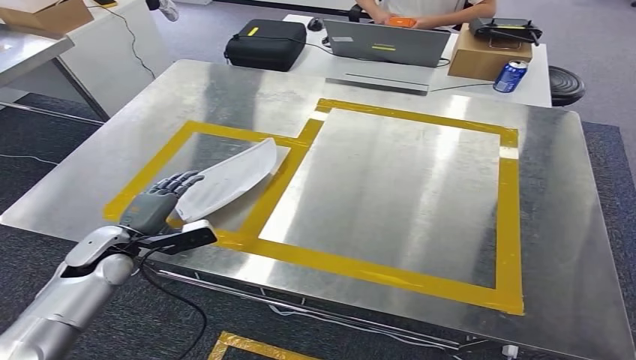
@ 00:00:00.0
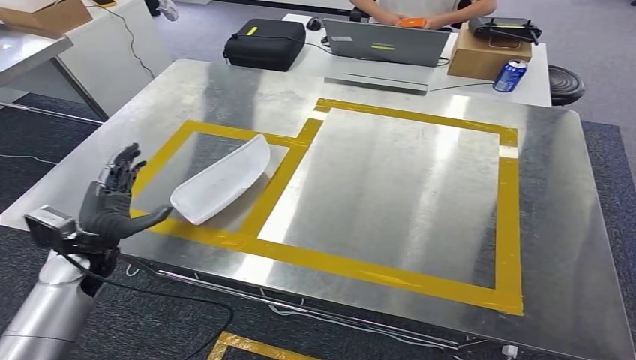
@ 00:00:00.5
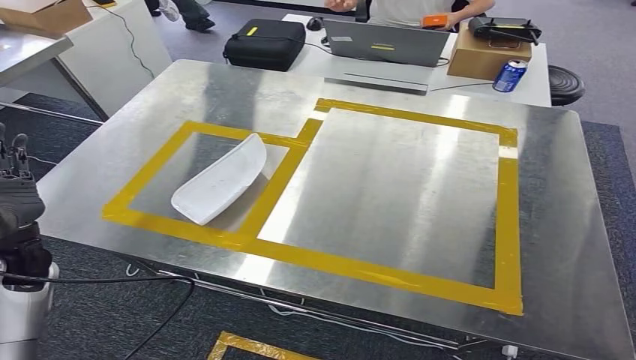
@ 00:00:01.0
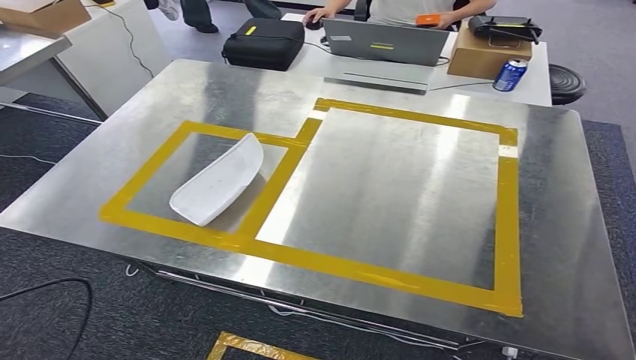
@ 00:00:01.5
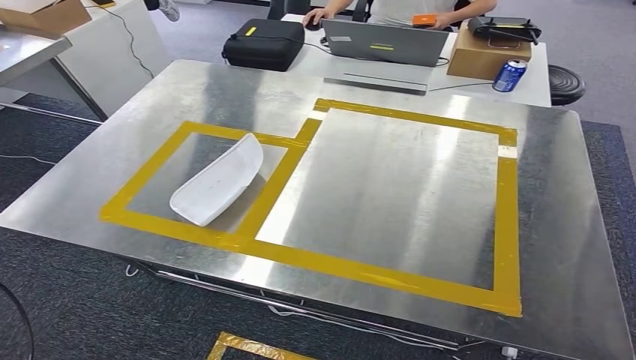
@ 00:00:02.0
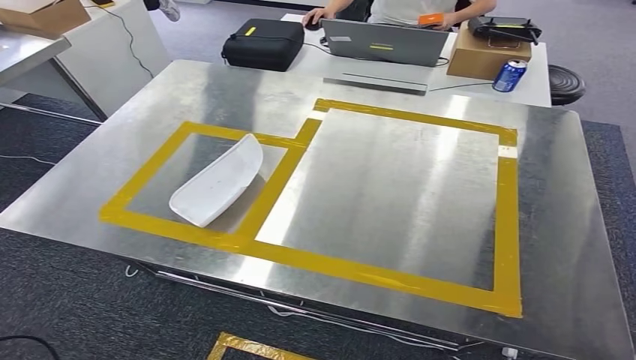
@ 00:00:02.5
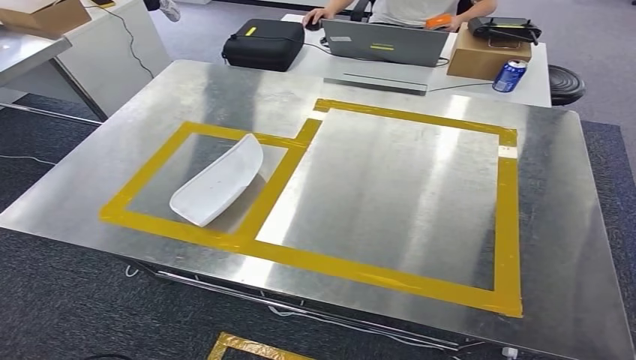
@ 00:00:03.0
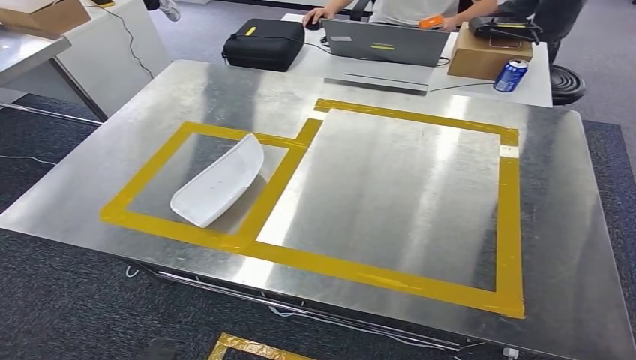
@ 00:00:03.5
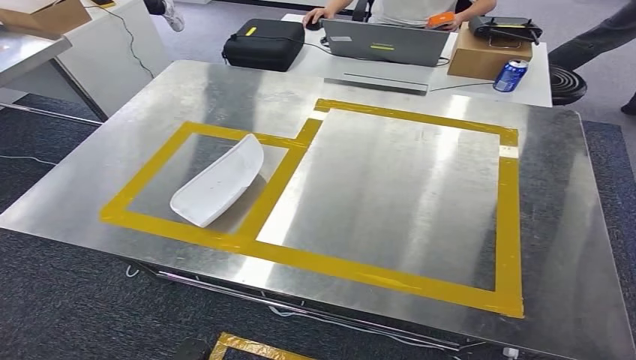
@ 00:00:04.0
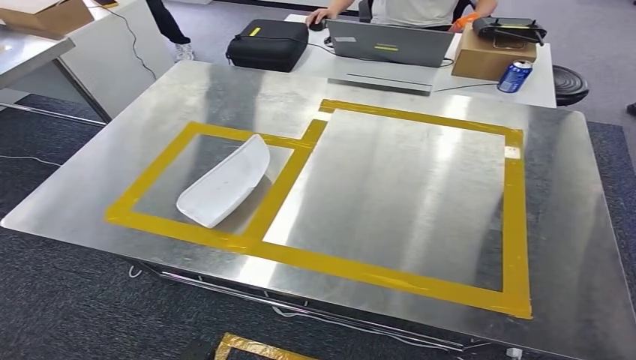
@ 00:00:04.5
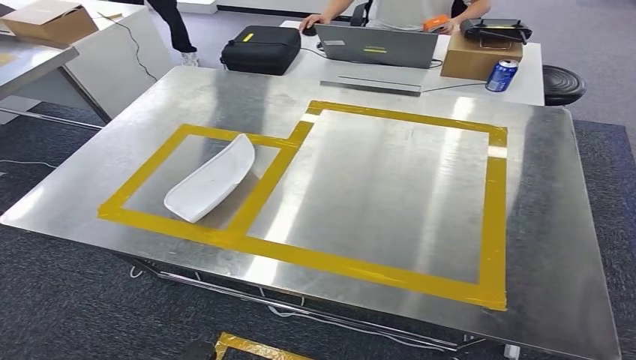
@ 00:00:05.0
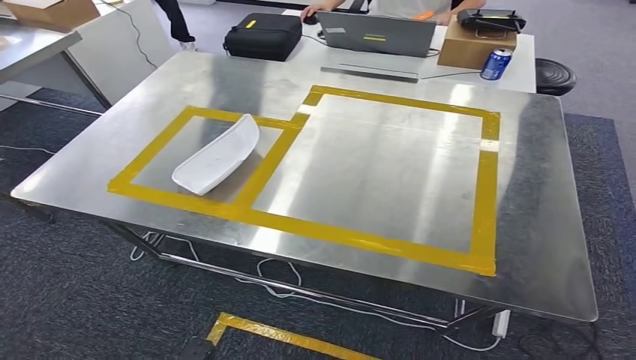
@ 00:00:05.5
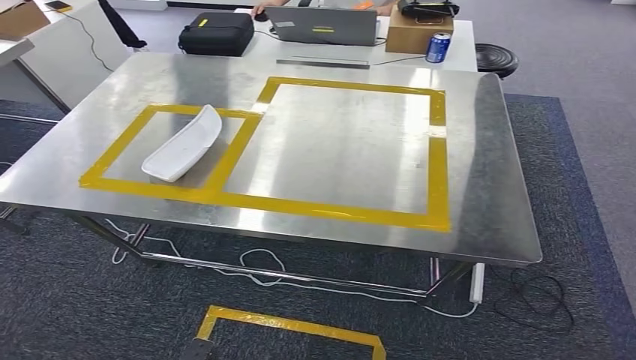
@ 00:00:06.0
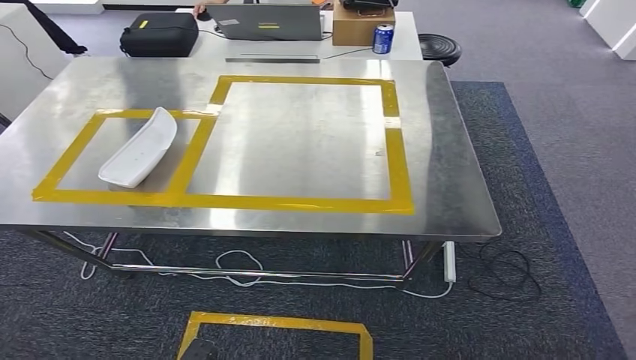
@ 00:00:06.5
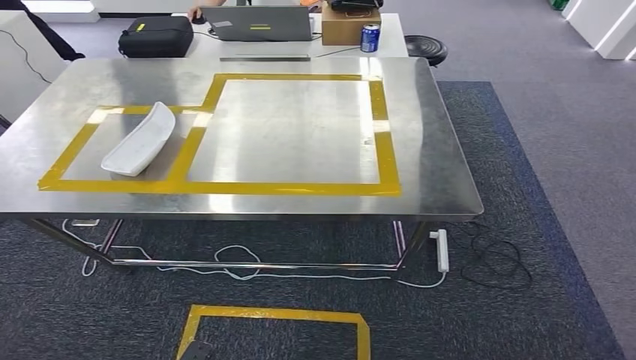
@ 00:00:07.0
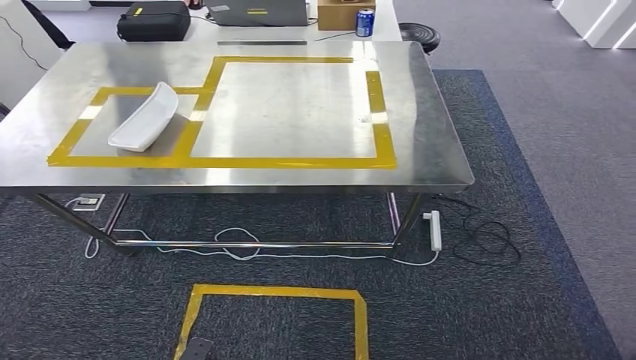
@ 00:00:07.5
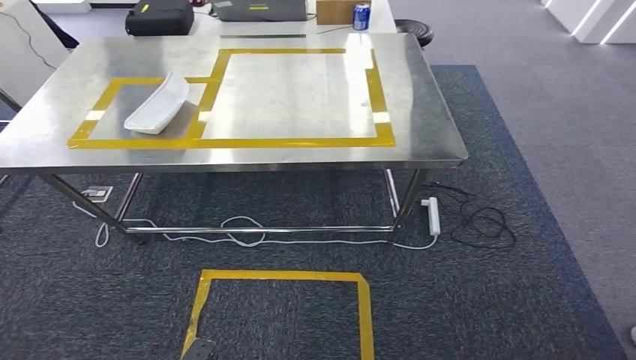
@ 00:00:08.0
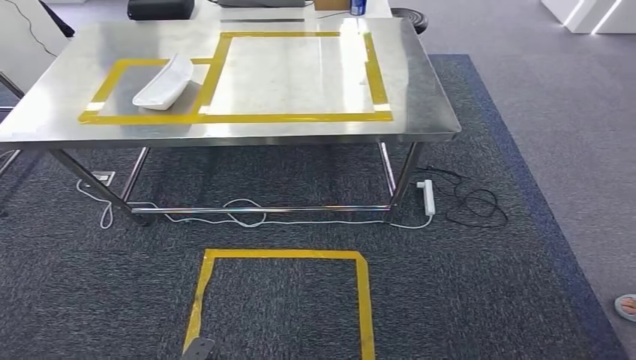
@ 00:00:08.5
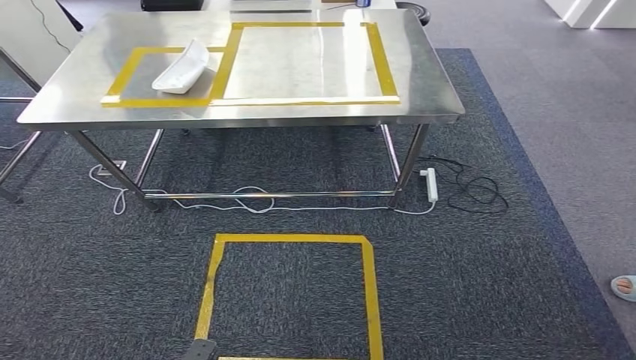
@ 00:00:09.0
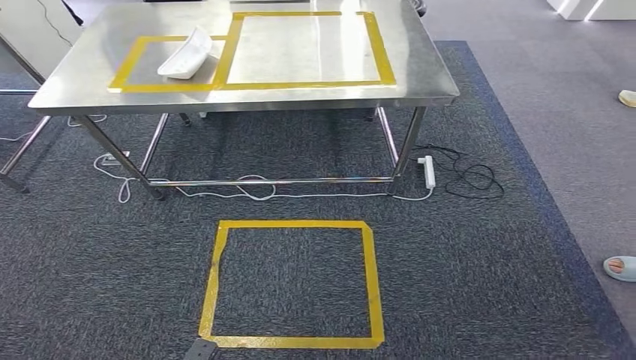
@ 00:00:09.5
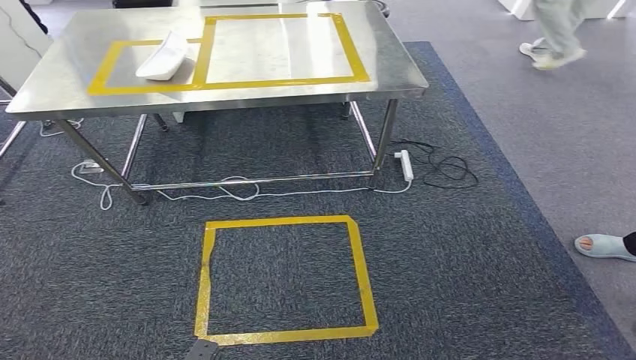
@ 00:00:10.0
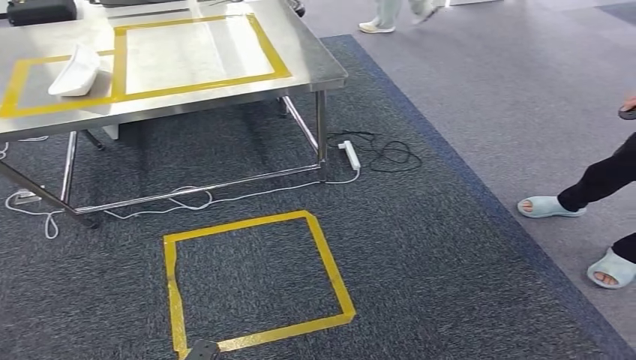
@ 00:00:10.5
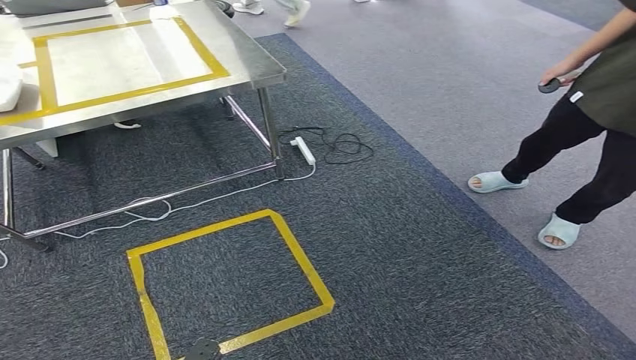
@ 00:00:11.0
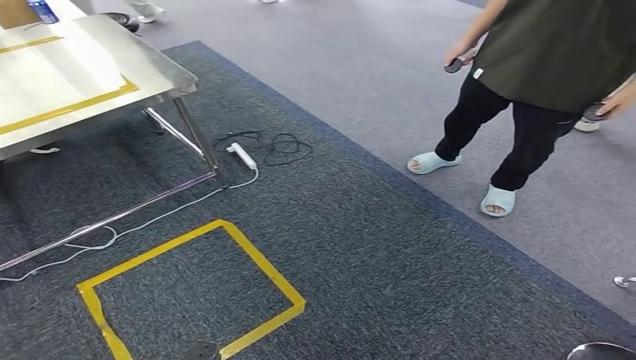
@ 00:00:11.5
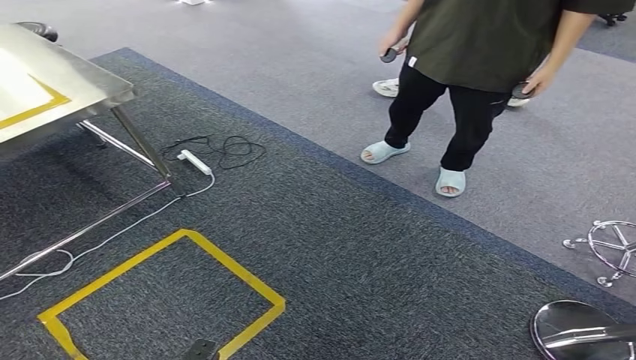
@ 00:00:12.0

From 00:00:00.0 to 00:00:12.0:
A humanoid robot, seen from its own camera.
Step, from 00:00:00.0 to 00:00:02.5: Insert the small component into the corresponding slot on the workbench.
From 00:00:00.0 to 00:00:02.0: The left hand travels backward and to the left by roughly 35 cm.
From 00:00:02.0 to 00:00:04.0: The left hand heads to the right and downward, covering approximately 50 cm.

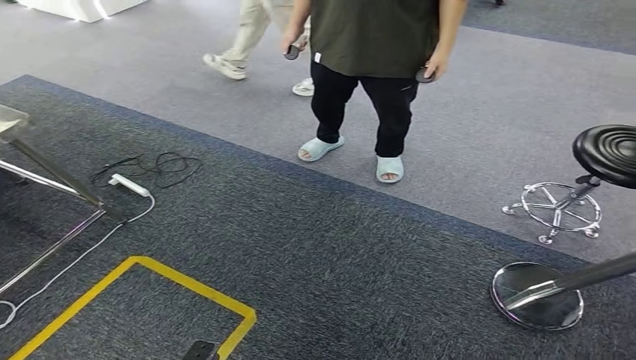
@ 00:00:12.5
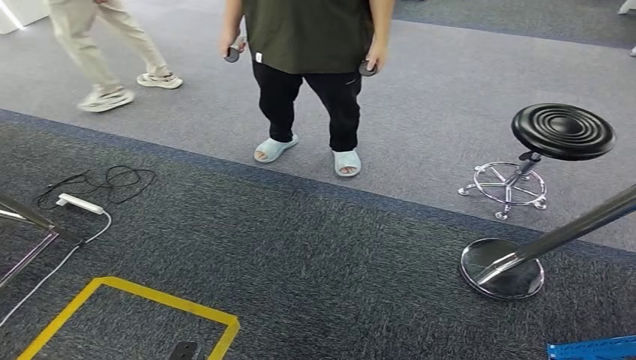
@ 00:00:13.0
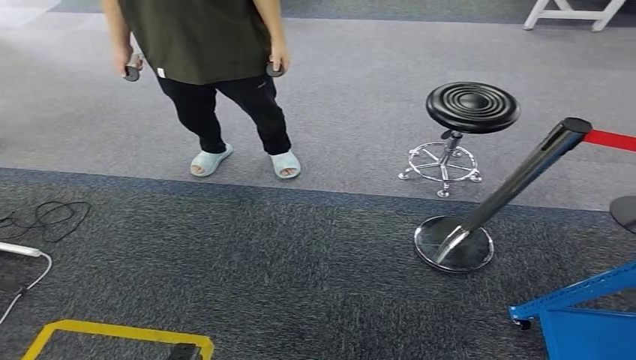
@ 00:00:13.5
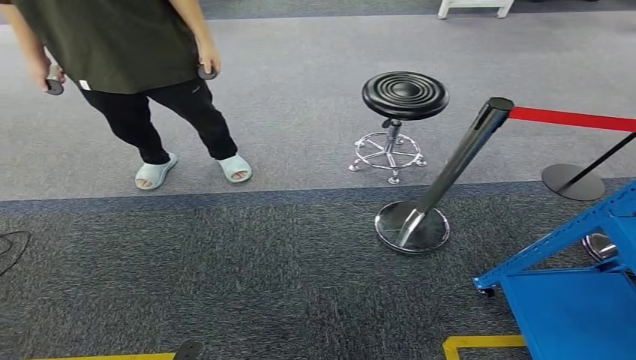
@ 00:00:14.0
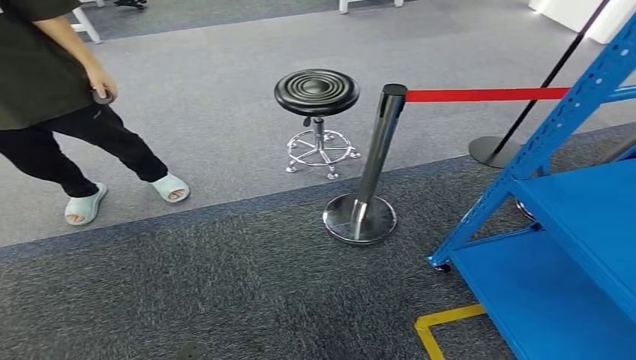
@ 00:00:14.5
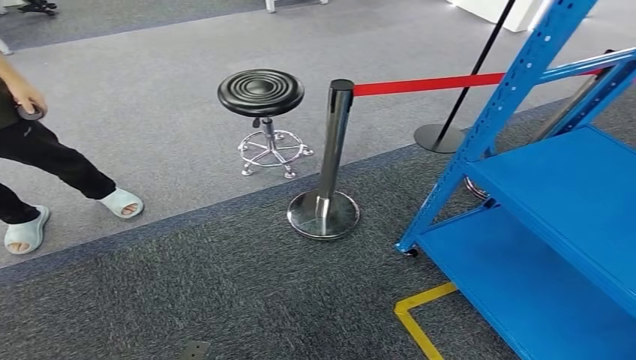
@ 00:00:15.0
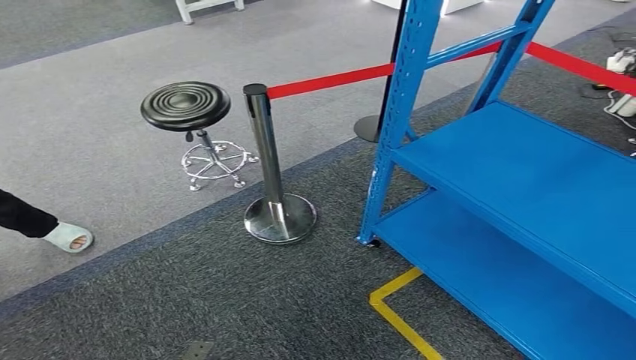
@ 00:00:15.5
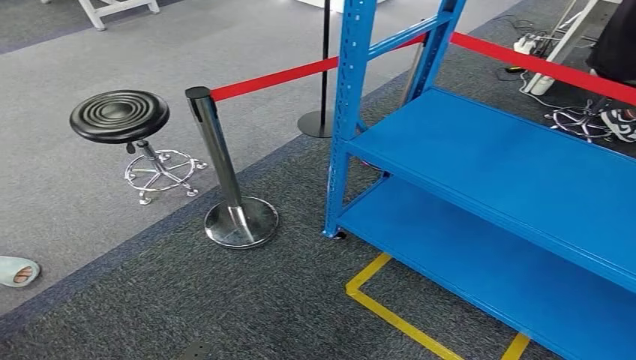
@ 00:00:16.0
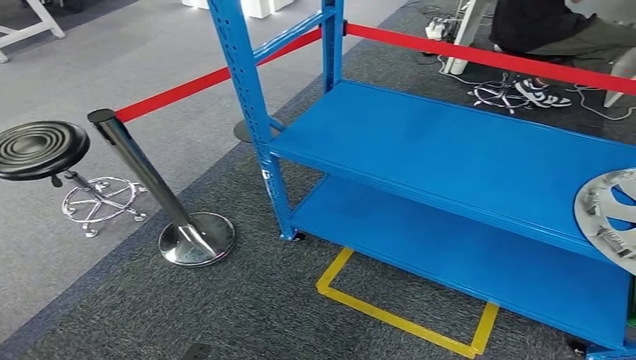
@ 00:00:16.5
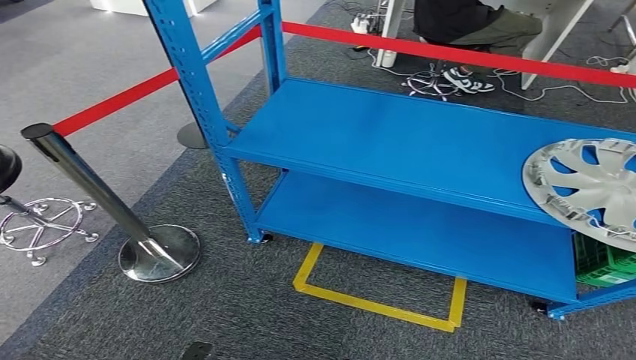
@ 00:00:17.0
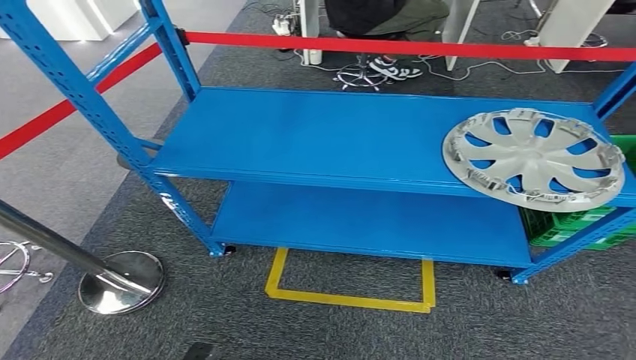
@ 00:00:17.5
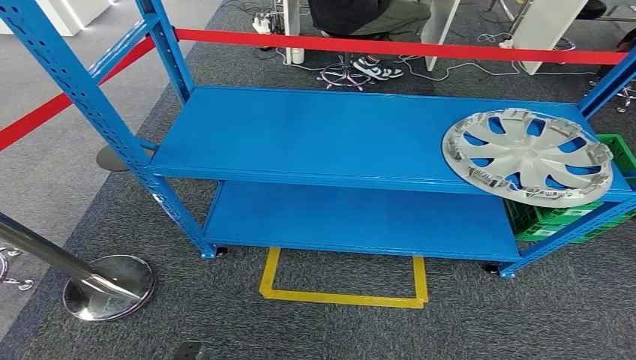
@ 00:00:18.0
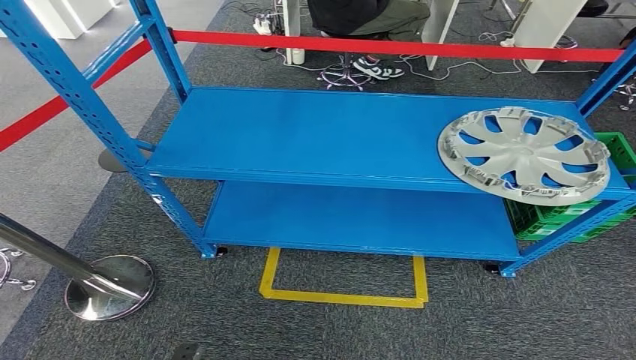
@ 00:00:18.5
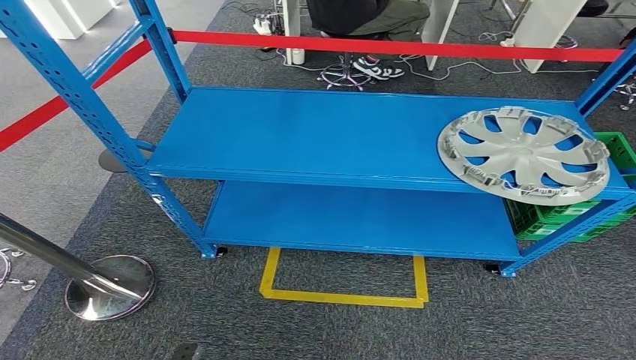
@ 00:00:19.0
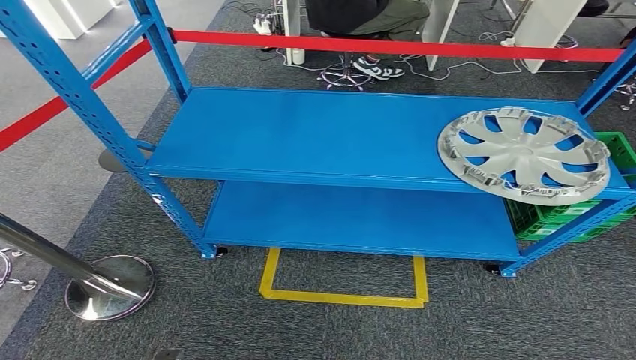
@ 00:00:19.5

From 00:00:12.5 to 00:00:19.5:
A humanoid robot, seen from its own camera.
Step, from 00:00:12.5 to 00:00:19.5: Return to the initial position at the workbench.
